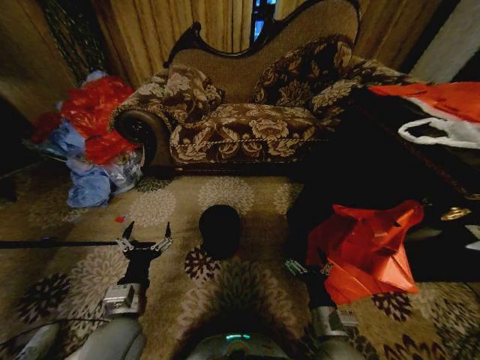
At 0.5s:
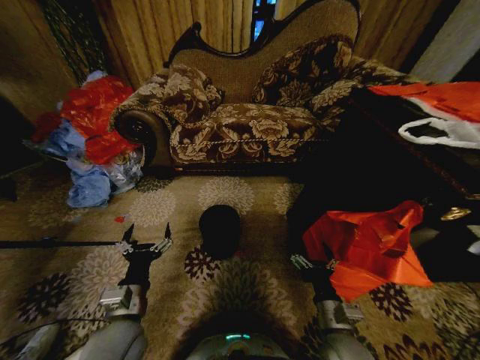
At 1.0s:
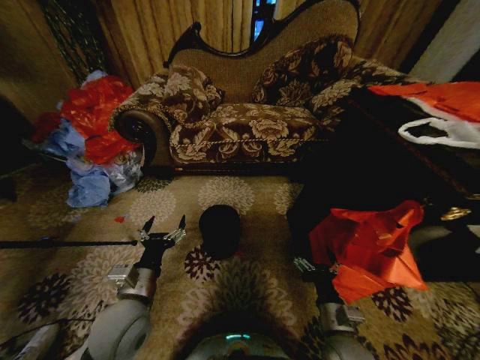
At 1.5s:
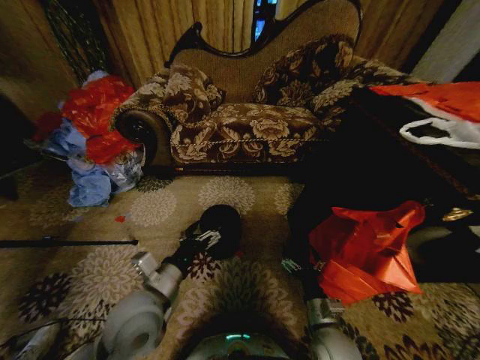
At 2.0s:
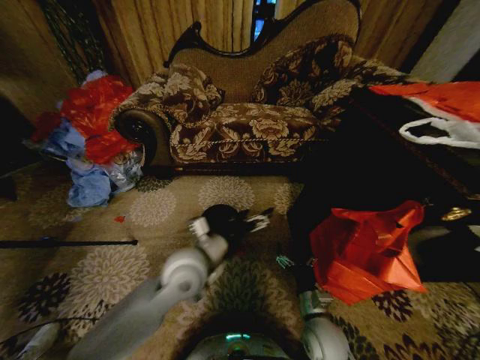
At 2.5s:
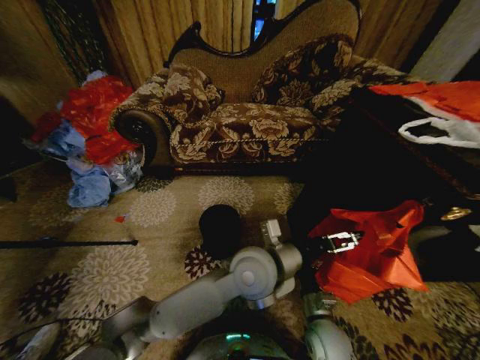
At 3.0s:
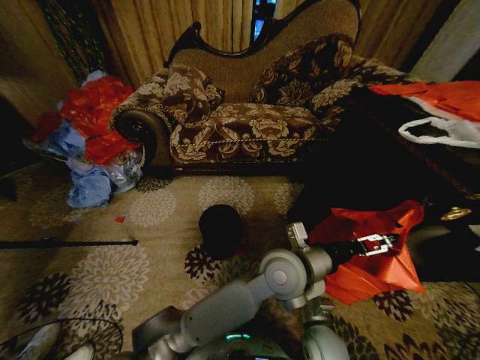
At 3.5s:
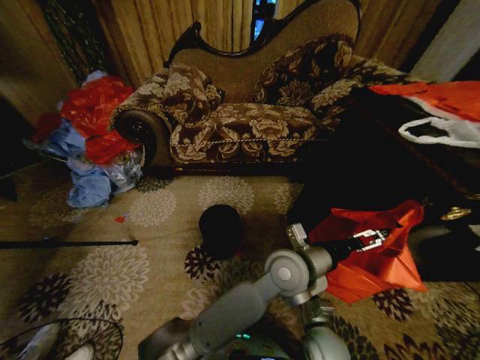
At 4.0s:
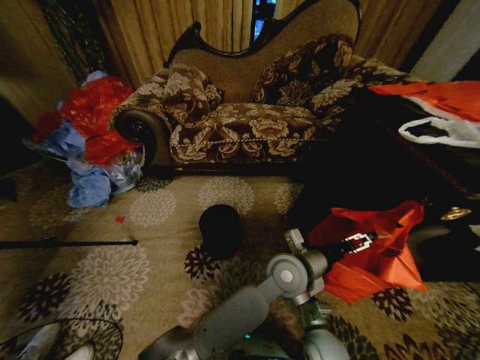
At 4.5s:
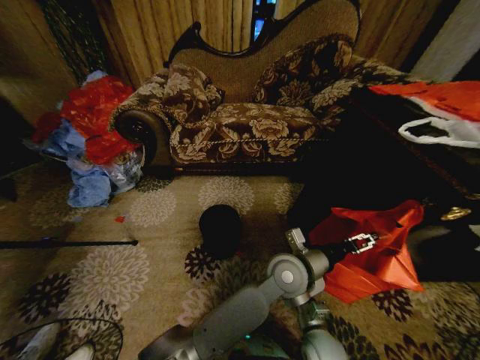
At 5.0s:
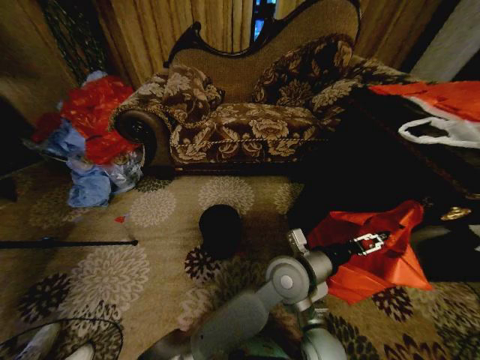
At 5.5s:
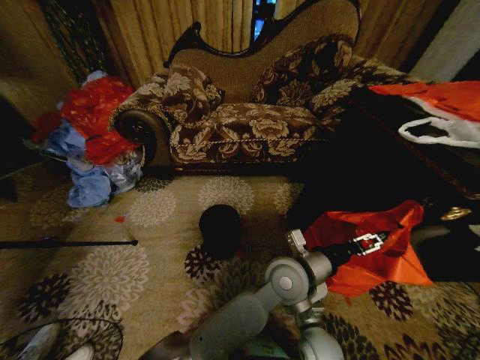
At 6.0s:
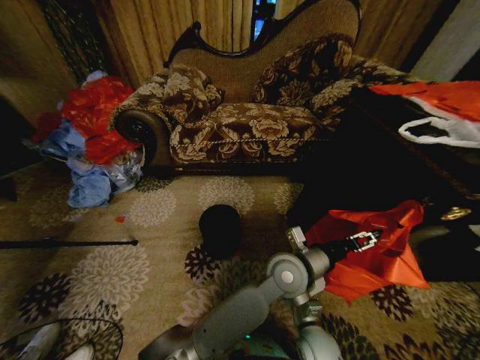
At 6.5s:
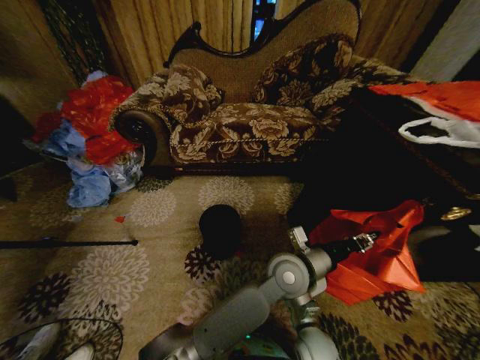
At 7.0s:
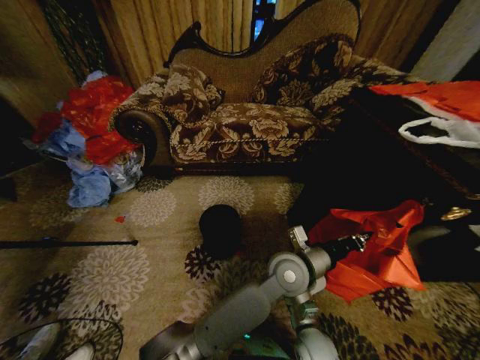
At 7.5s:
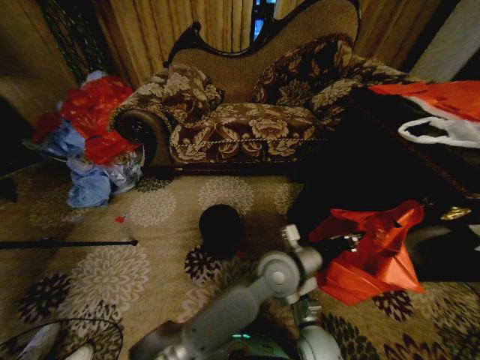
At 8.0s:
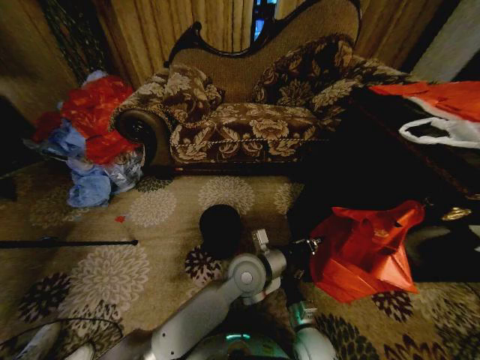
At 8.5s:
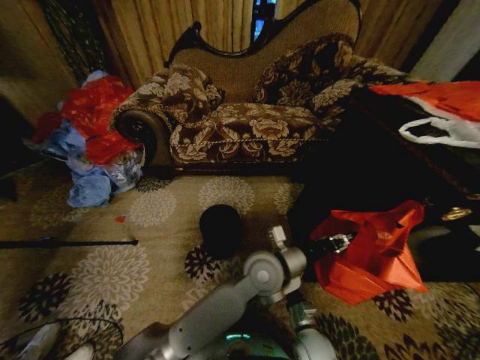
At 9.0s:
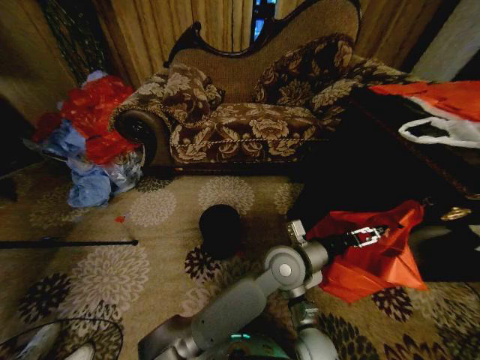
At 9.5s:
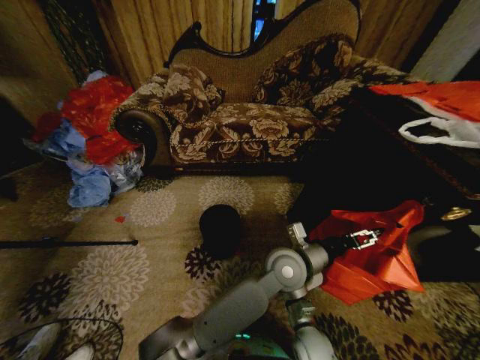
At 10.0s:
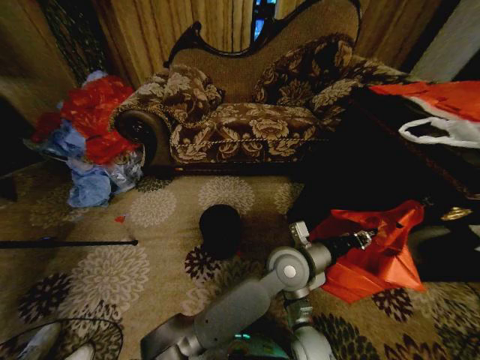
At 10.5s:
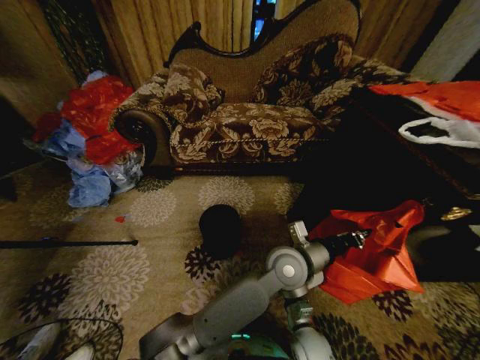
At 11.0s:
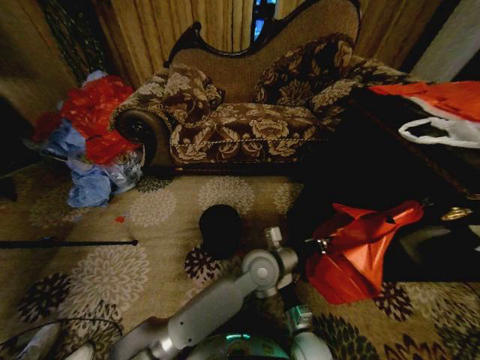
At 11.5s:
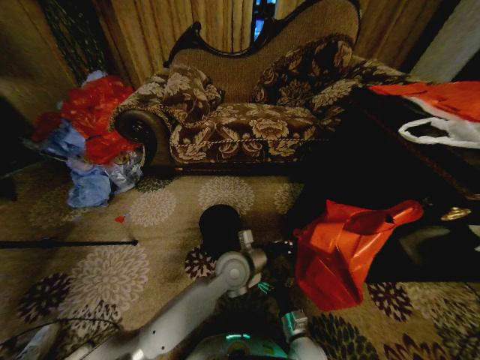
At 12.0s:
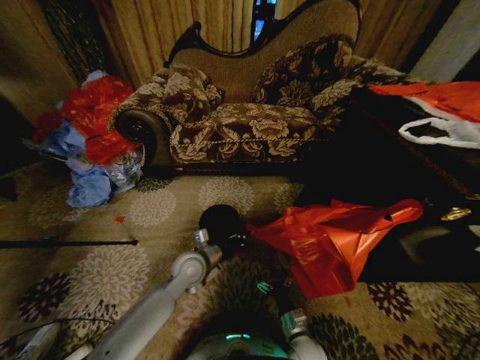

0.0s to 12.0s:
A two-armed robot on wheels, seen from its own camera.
Task of the whole recording: Place a garbage bag over the trash bin.
2.0s to 4.0s: The left gripper moves to the right, about 20 cm.
4.0s to 6.0s: The grippers move only a little.
6.0s to 8.0s: The left gripper shifts about 10 cm to the left, and closes up.
8.0s to 10.0s: The left gripper goes some 10 cm to the right, and opens, then closes again.
10.0s to 12.0s: The left gripper shifts approximately 25 cm to the left.

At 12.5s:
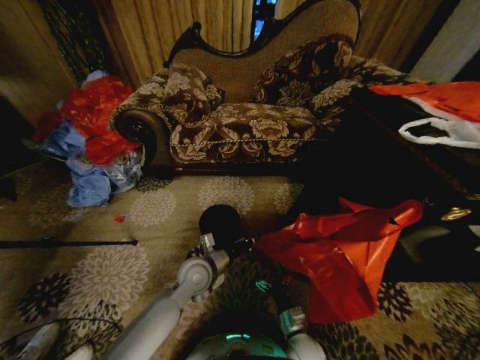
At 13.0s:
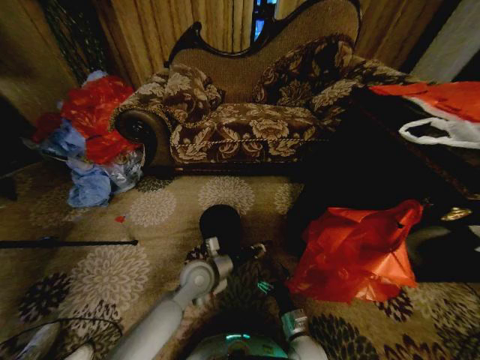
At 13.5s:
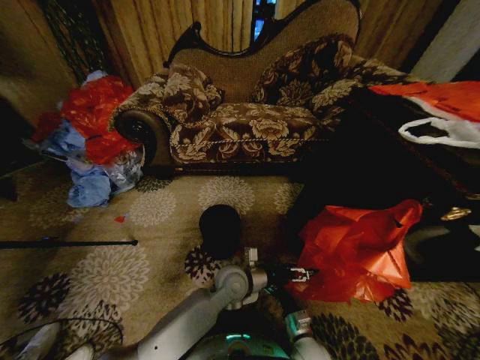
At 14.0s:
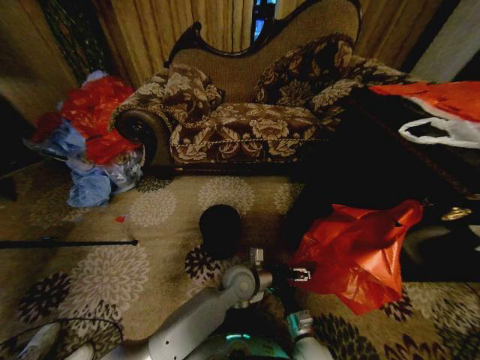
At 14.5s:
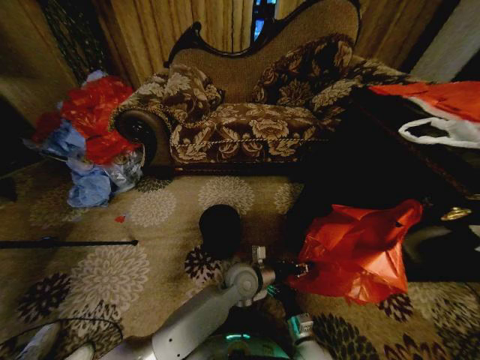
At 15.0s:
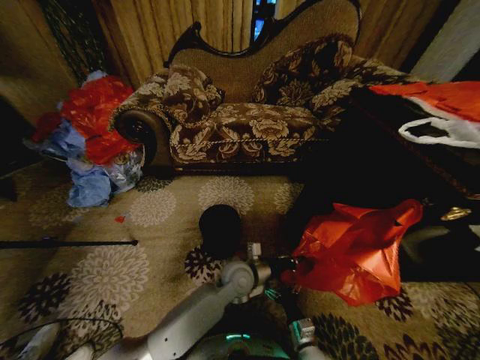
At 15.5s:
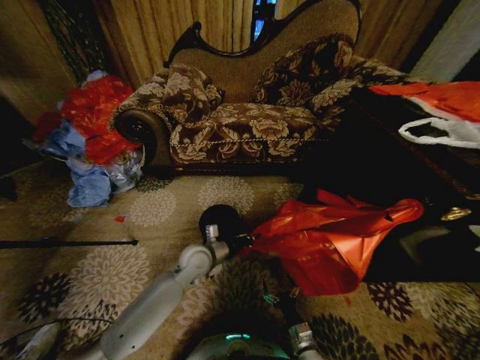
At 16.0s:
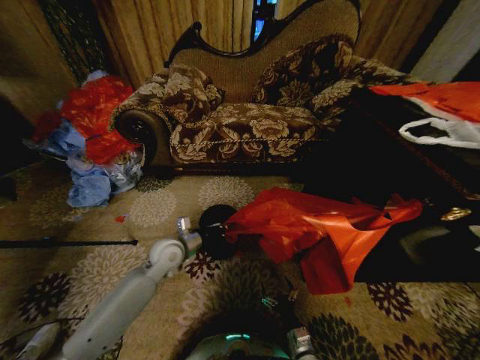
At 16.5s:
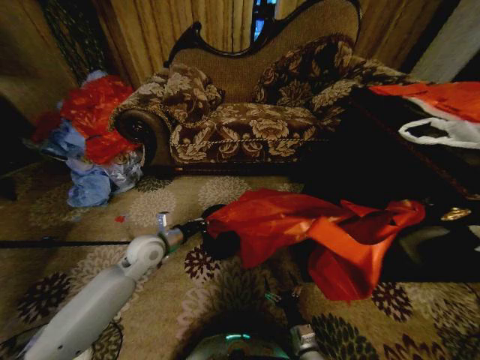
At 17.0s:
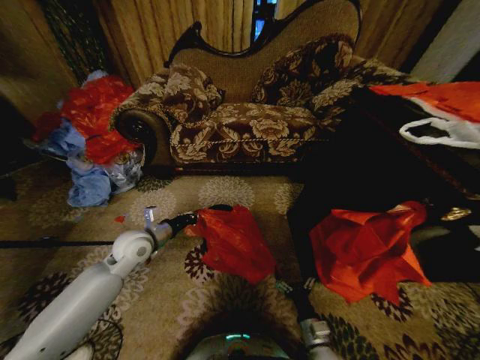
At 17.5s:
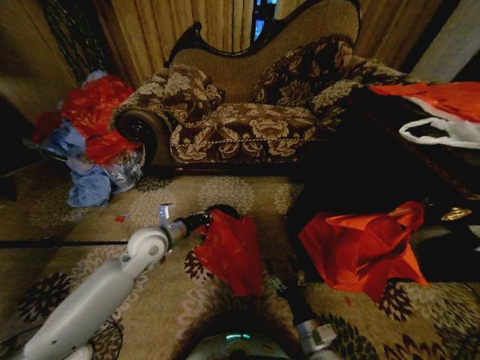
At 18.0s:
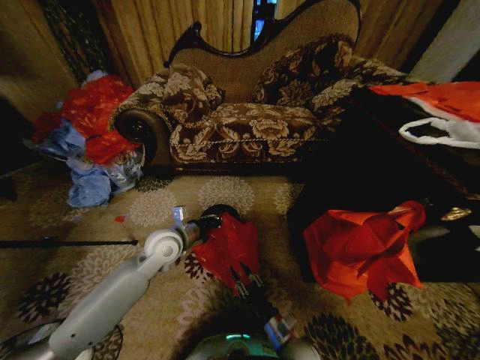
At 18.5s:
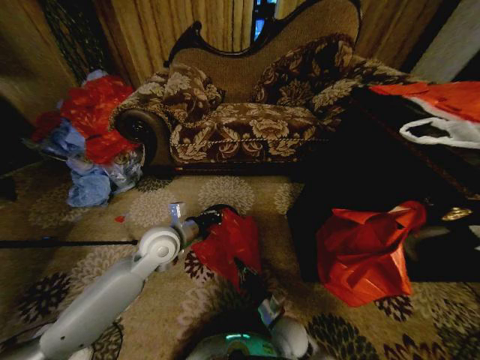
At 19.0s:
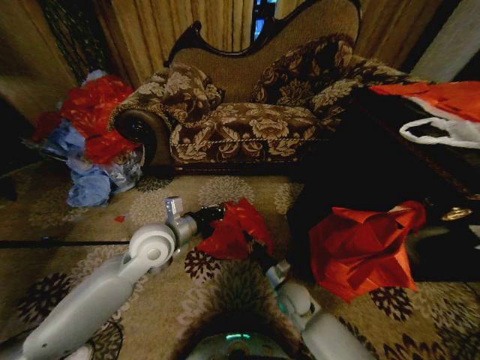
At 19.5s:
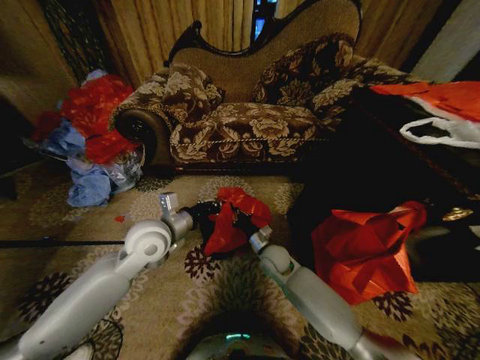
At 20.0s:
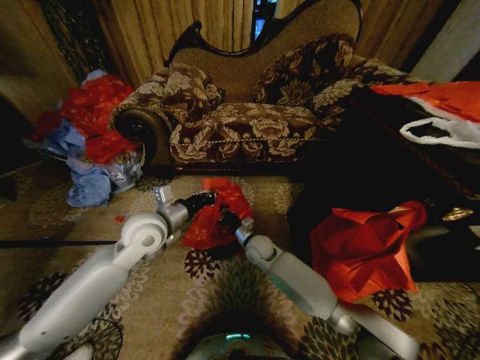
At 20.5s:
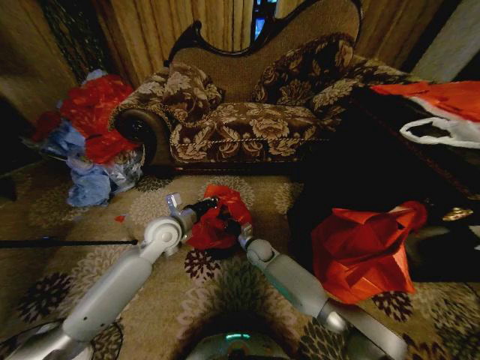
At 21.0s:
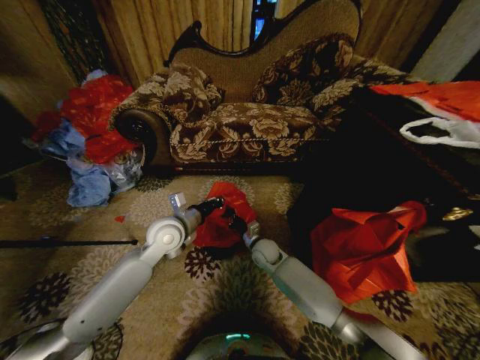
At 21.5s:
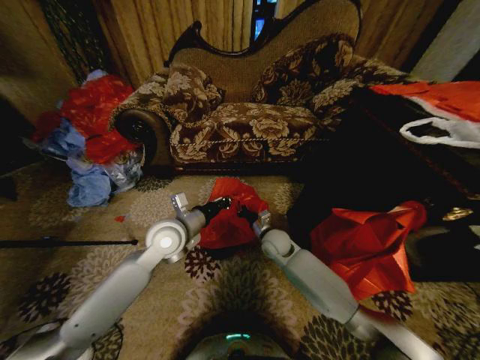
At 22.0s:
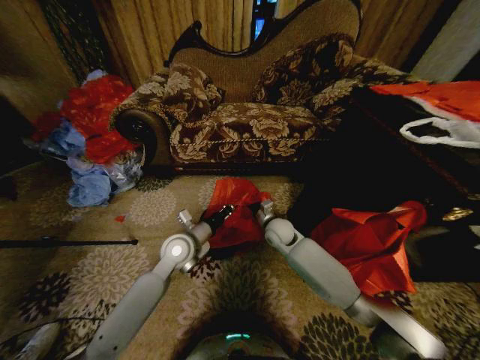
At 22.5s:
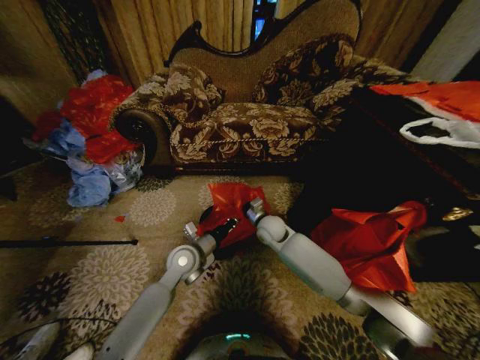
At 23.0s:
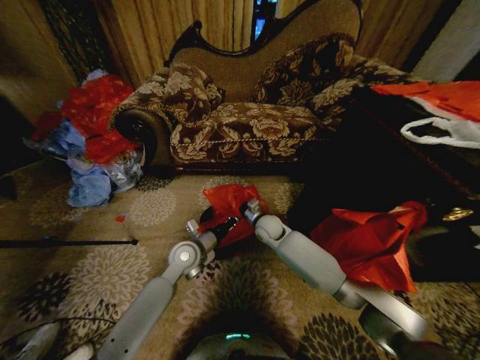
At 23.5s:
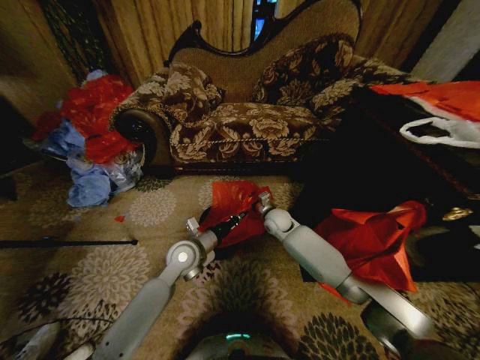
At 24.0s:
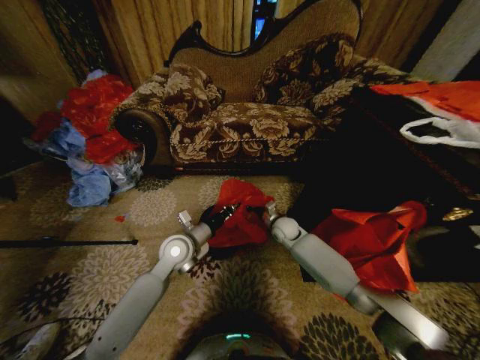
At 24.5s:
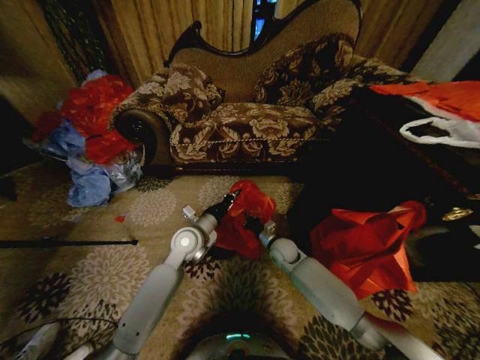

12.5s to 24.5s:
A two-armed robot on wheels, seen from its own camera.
Task of the whole recording: Place a garbage bag over the trash bin.
12.5s to 14.5s: The left gripper heads to the right, covering about 15 cm, and opens, then closes again.
14.5s to 16.5s: The left gripper shifts roughly 25 cm to the left, and closes up.
16.5s to 18.5s: The left gripper goes some 10 cm to the right and upward, while the right gripper shifts some 10 cm forward and to the left, and closes its fingers.
18.5s to 20.5s: The right gripper heads forward, covering about 25 cm.
20.5s to 22.5s: The left gripper is displaced downward and to the right by roughly 10 cm. The right gripper shifts about 10 cm upward.
22.5s to 24.5s: The right gripper is displaced downward by some 10 cm. The left gripper shifts by about 5 cm.

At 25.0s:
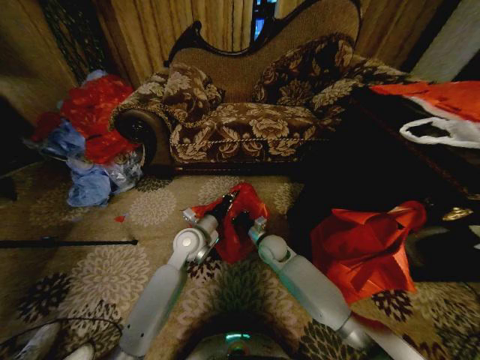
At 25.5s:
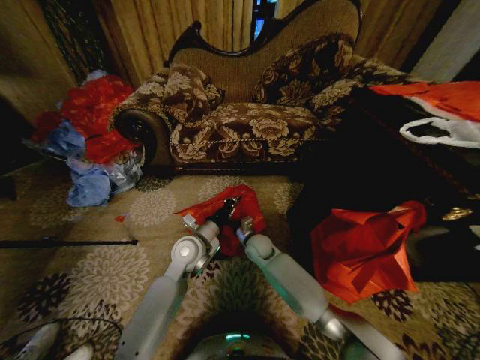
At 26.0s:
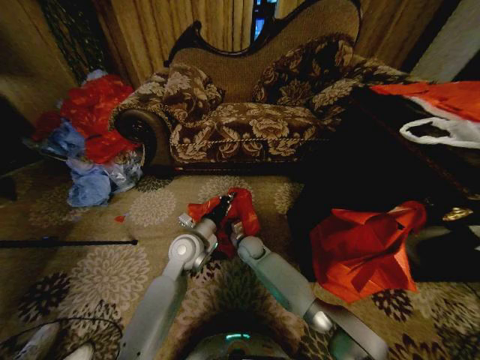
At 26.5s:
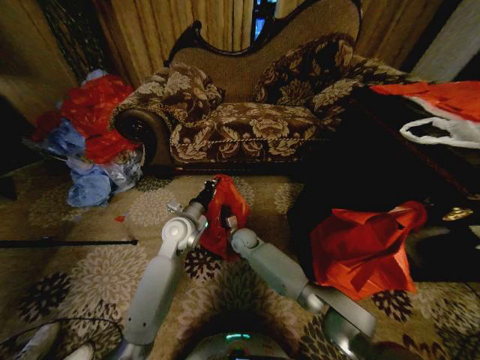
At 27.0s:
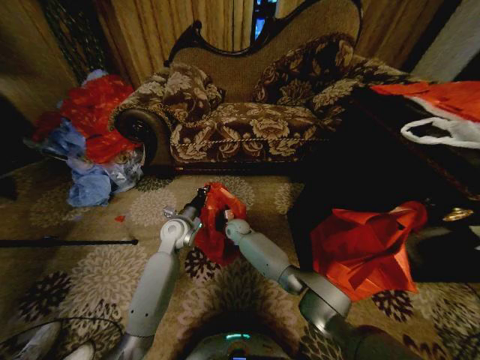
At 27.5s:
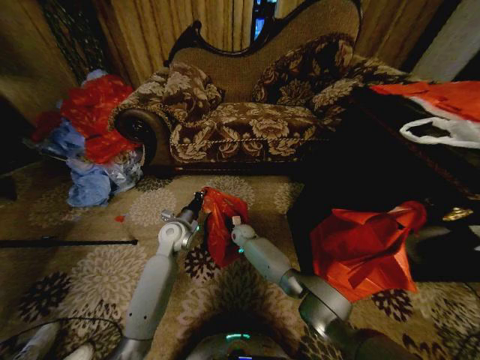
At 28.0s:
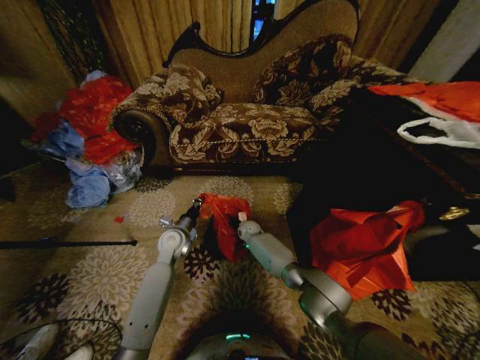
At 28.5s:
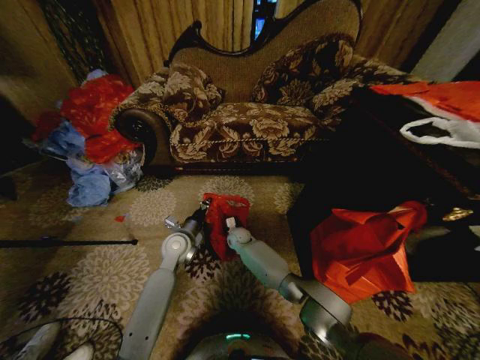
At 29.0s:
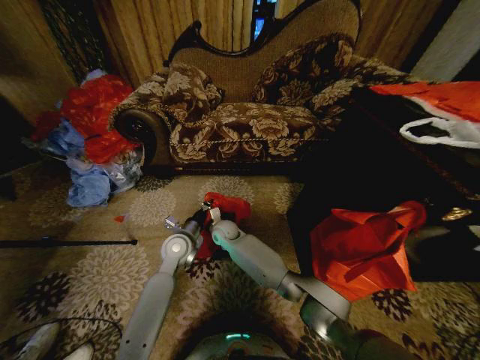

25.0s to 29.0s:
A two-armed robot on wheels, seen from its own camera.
Task of the whole recording: Place a garbage bag over the trash bin.
25.0s to 27.0s: The right gripper shifts approximately 15 cm to the left and forward; the left gripper goes approximately 5 cm to the left.
27.0s to 29.0s: The left gripper heads backward, covering some 5 cm. The right gripper ends up about 5 cm from where it was.
